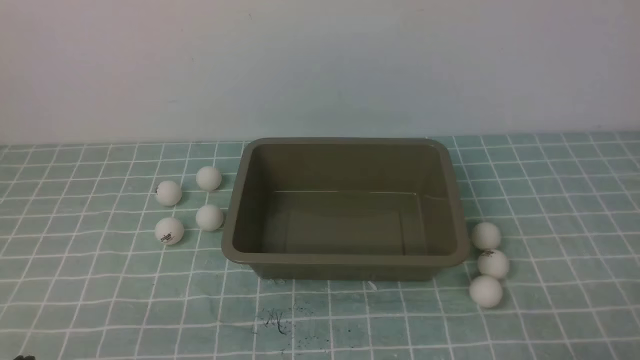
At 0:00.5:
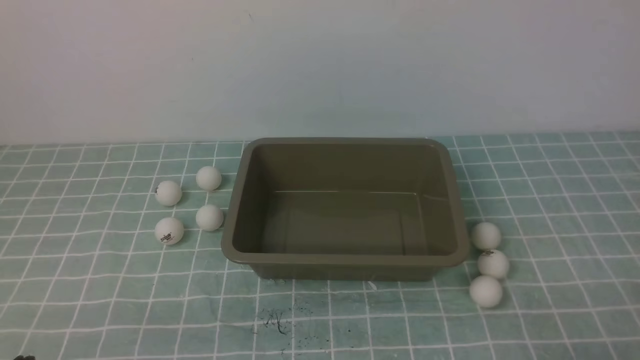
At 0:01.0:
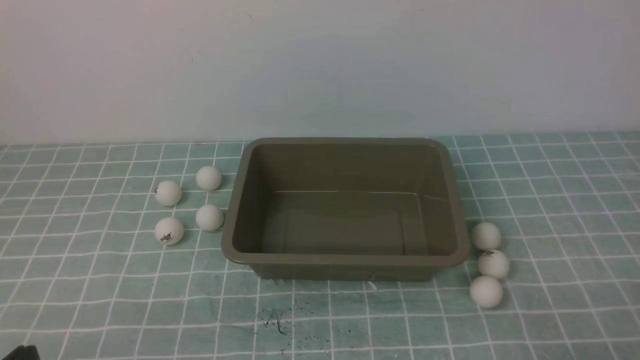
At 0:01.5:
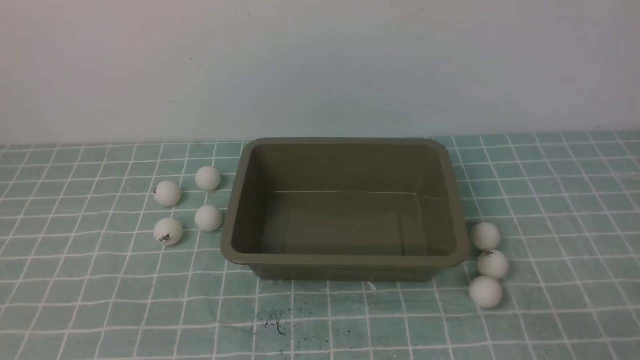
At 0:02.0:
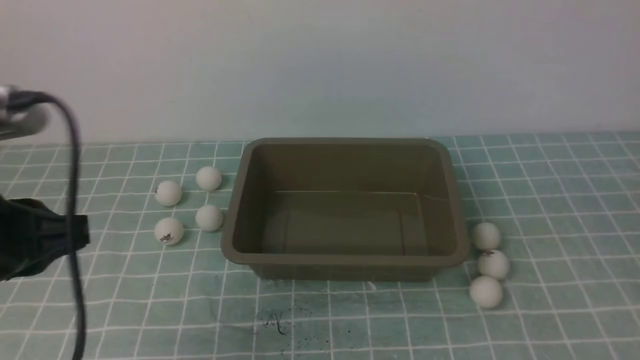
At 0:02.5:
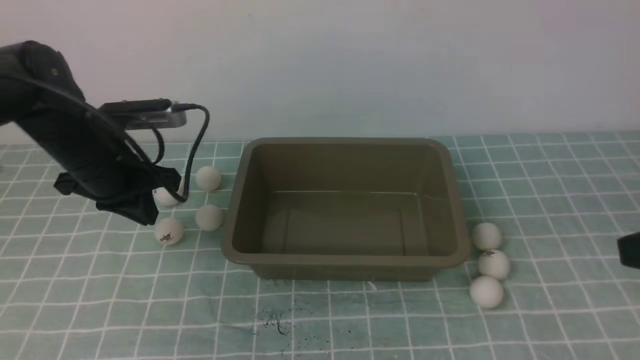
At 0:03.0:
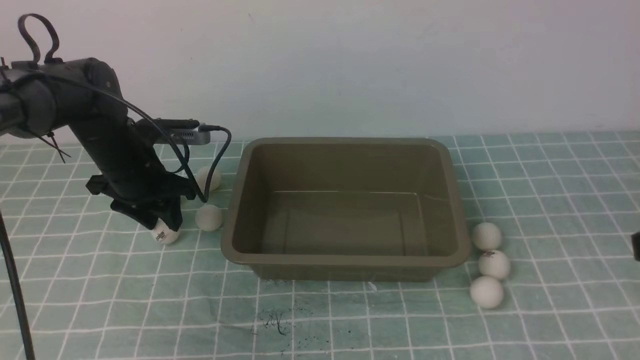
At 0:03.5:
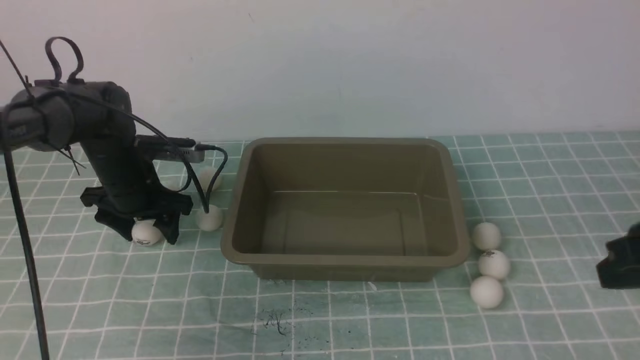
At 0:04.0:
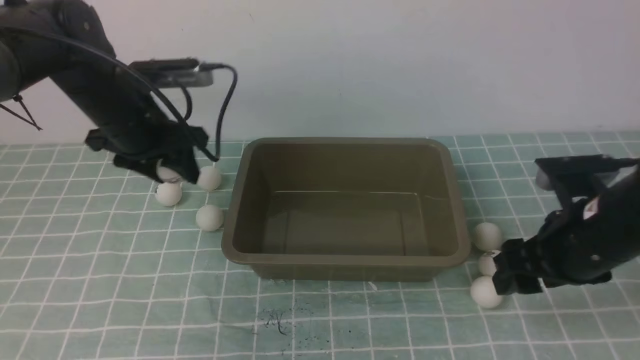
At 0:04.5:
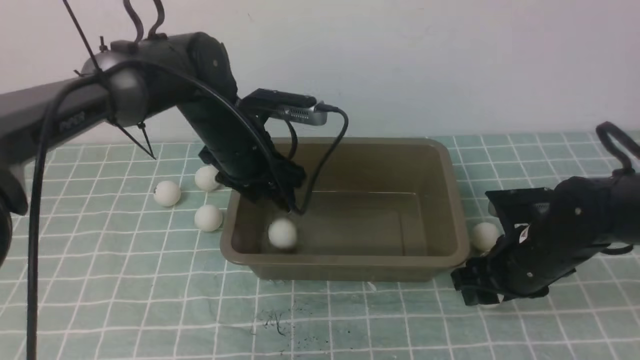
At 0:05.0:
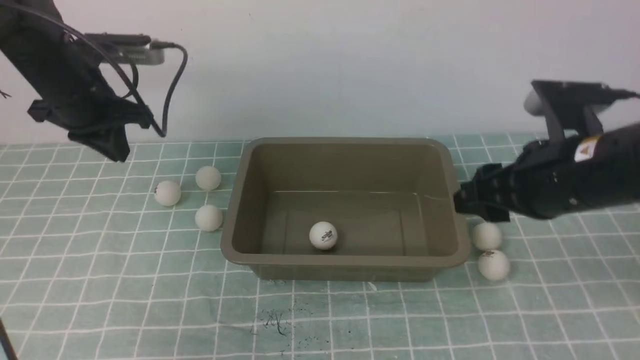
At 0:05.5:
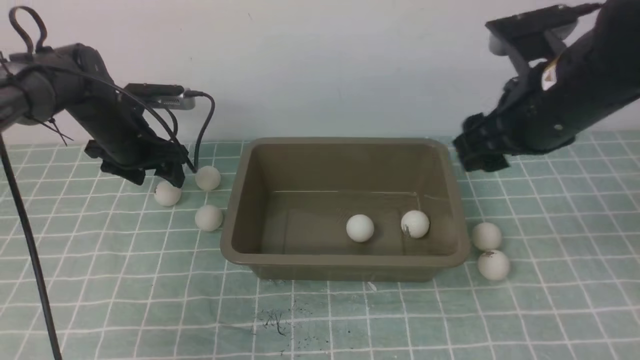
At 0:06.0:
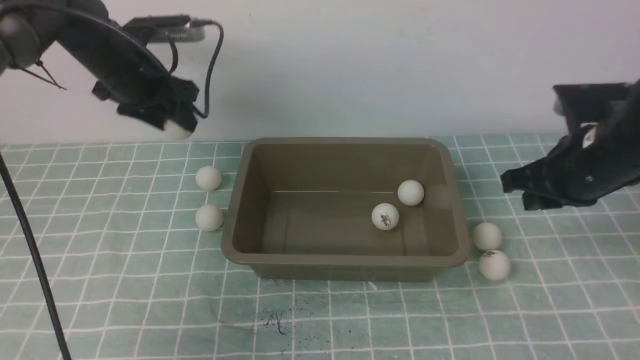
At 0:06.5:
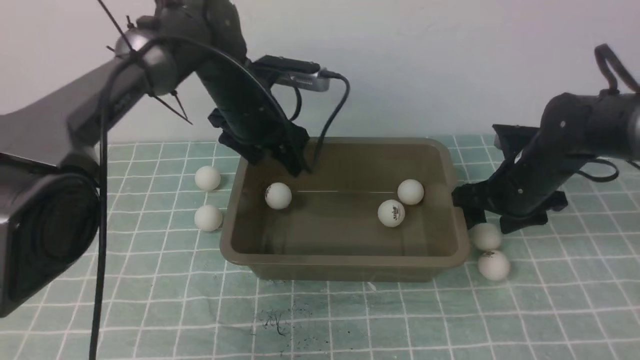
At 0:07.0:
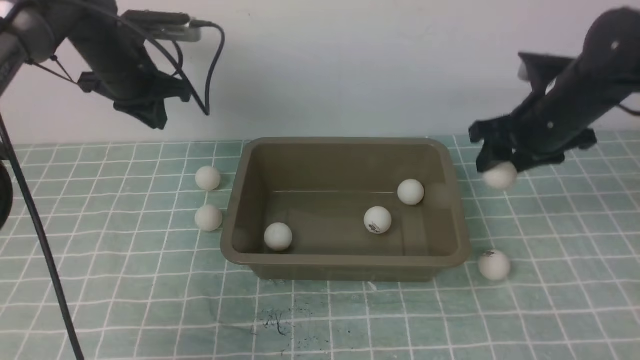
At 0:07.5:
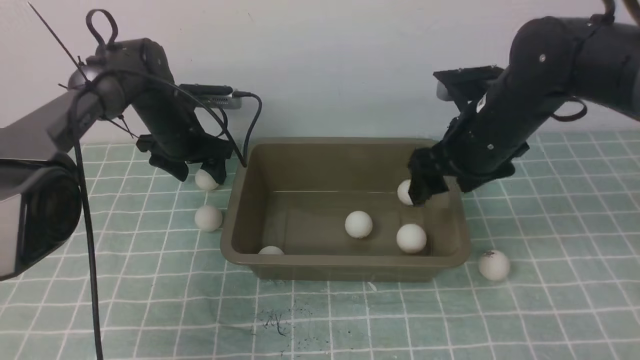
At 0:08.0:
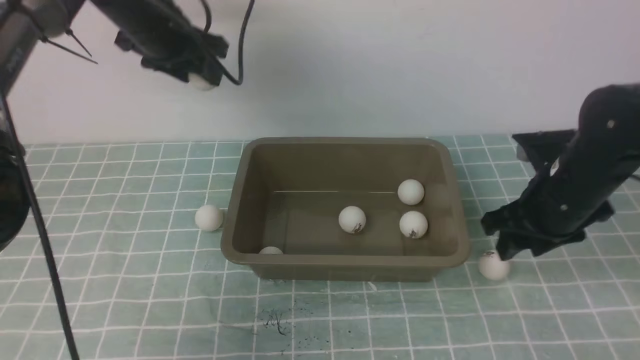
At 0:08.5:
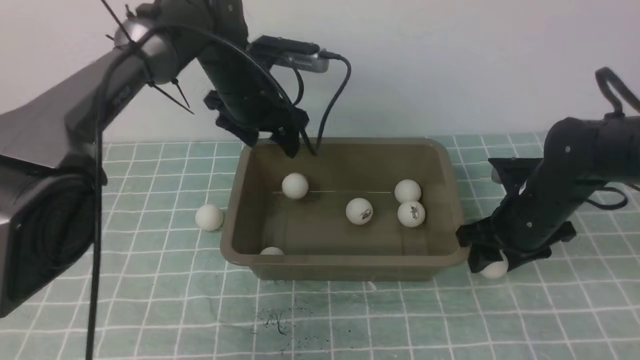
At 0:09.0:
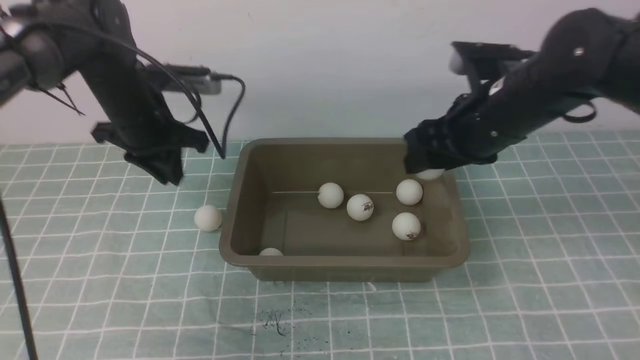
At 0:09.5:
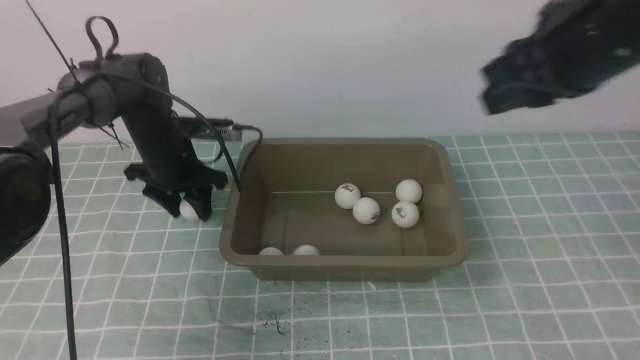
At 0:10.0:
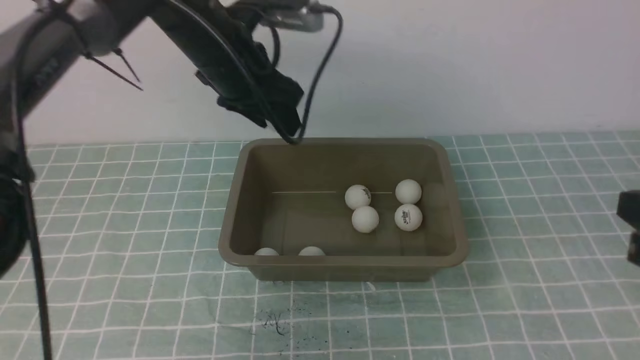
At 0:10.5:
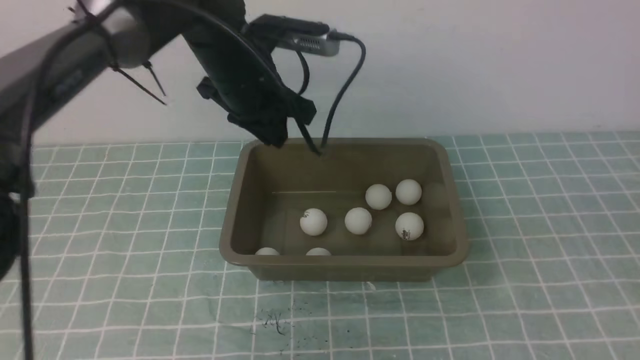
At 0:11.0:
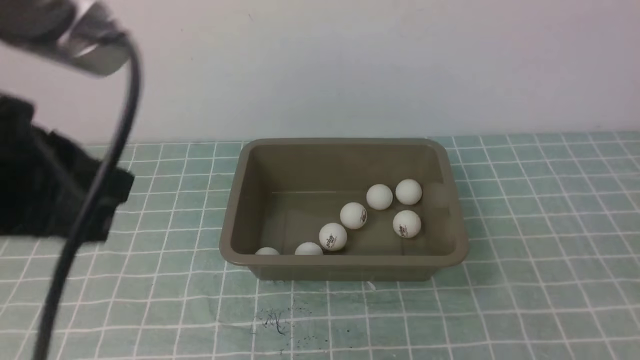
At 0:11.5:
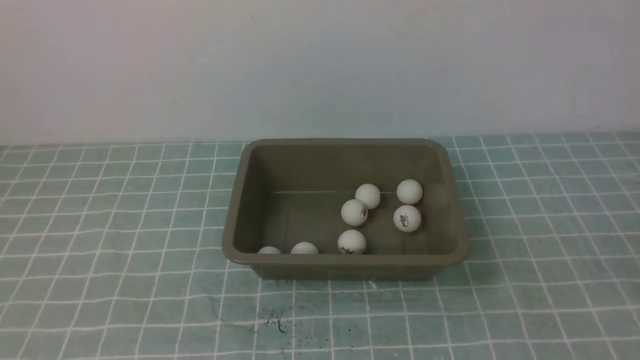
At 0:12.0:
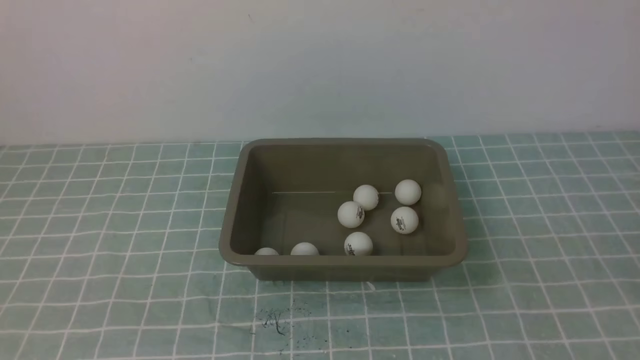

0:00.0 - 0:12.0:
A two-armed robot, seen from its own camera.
Step, 0:00.0 - 0:03.5: use the left arm to clamp the table tennis ball closest to it.
Step, 0:04.0 - 0:04.5: use the left arm to put the table tennis ball into the box.
Step, 0:05.0 - 0:05.5: use the right arm to put the table tennis ball into the box.
Step, 0:08.0 - 0:08.5: use the left arm to put the table tennis ball into the box.
Step, 0:09.0 - 0:09.5: use the right arm to put the table tennis ball into the box.
0:00.0 - 0:02.0: The left gripper heads upward and forward, covering about 20 cm.
0:02.0 - 0:04.0: The right gripper shifts about 25 cm forward and downward, and opens. The left gripper heads forward, covering roughly 25 cm, and opens up.
0:04.0 - 0:06.0: The right gripper swings up and down, about 15 cm each way, with 2 reversals, and closes, while the left gripper swings left and right, approximately 15 cm each way, with 2 reversals, and closes, then reopens.
0:06.0 - 0:08.0: The right gripper goes up and down, some 10 cm each way, reversing 2 times, while the left gripper closes, then reopens.
0:08.0 - 0:10.0: The right gripper heads backward and upward, covering roughly 25 cm, and closes its fingers. Meanwhile the left gripper heads to the right, covering about 5 cm, goes downward and returns, some 10 cm each way, and closes, then opens again.
0:10.0 - 0:12.0: The right gripper heads backward, covering roughly 10 cm. The left gripper travels backward by about 40 cm, and closes its fingers.

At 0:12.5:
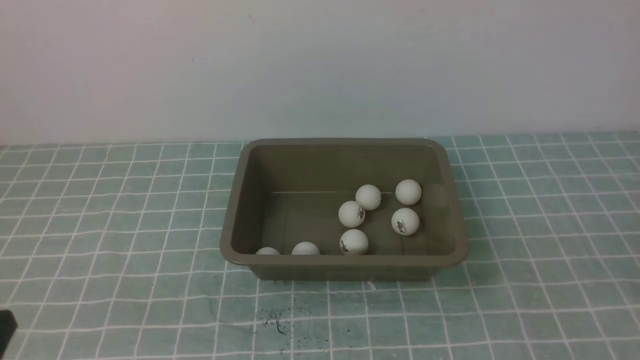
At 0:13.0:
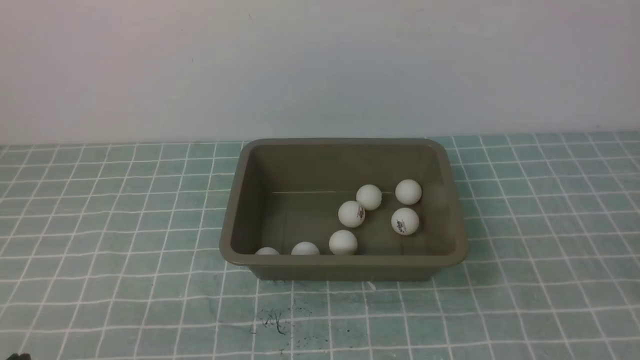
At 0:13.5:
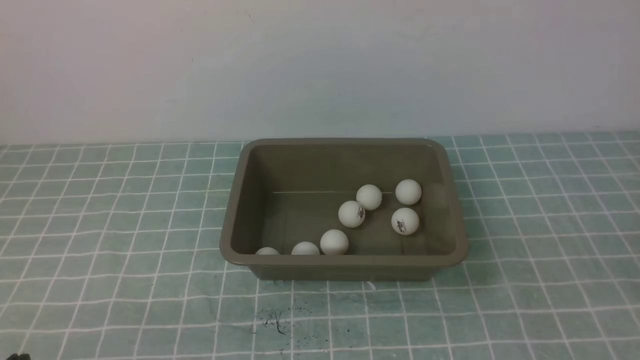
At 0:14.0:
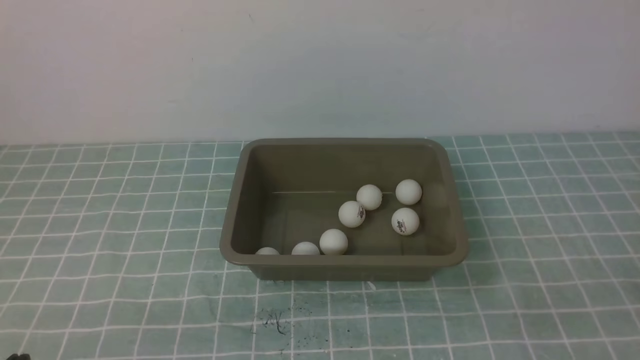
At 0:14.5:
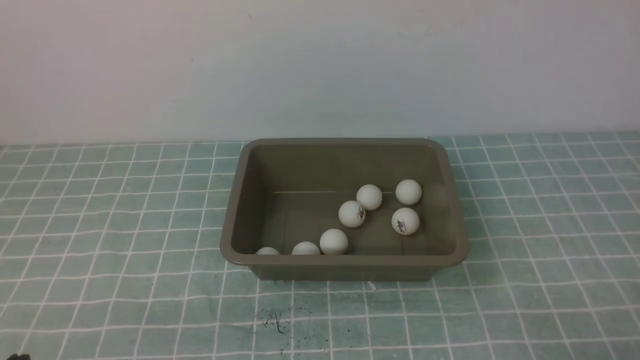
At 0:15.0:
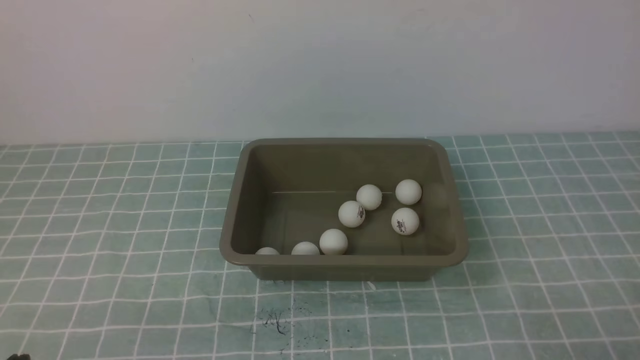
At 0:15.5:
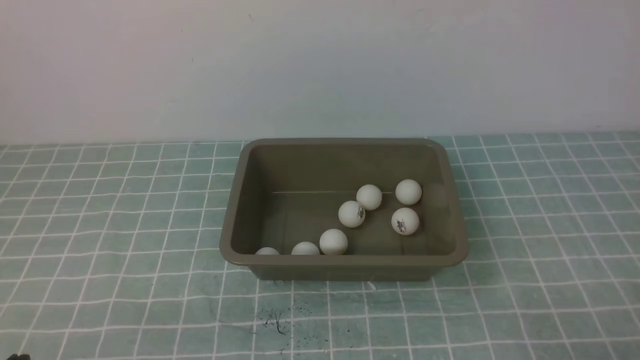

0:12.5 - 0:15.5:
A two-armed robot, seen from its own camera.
0:12.5 - 0:14.0: The left gripper goes approximately 5 cm downward.

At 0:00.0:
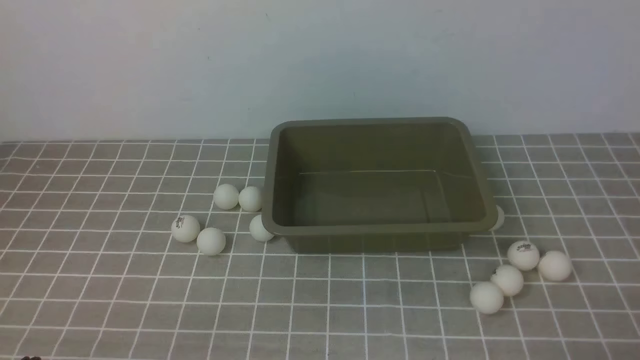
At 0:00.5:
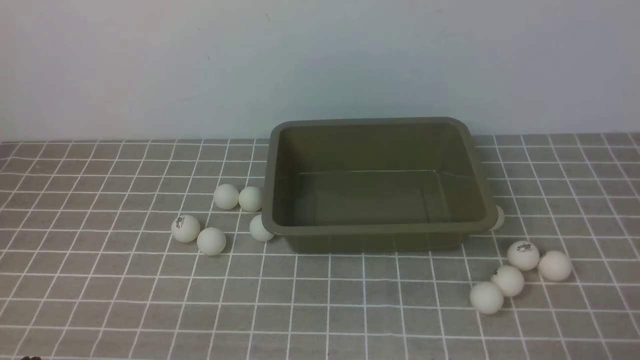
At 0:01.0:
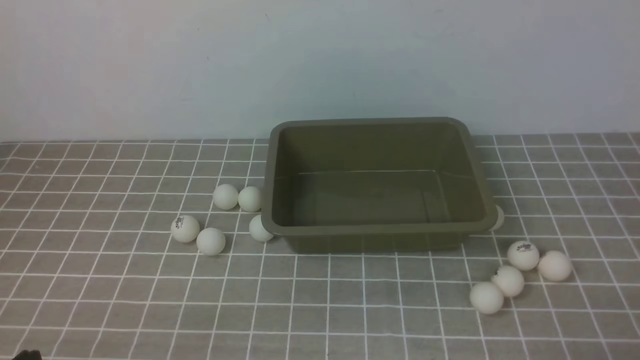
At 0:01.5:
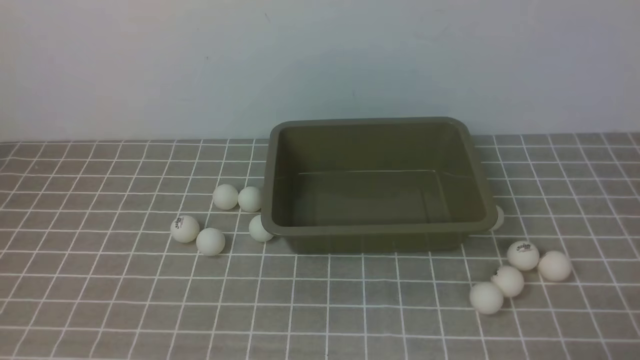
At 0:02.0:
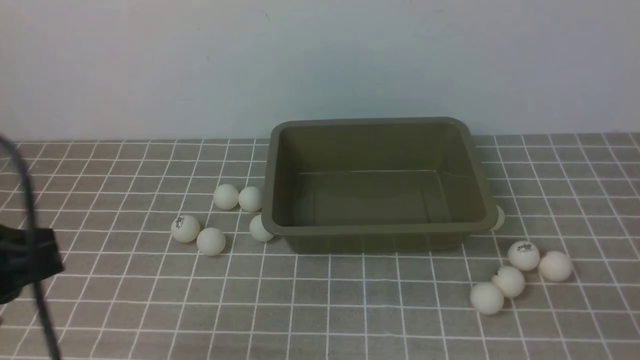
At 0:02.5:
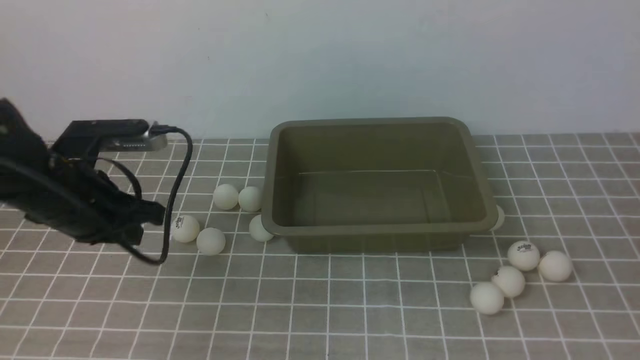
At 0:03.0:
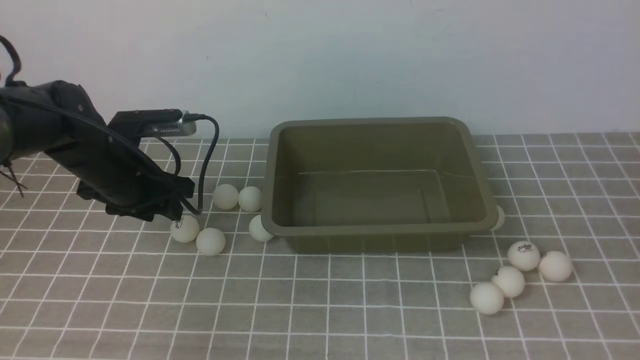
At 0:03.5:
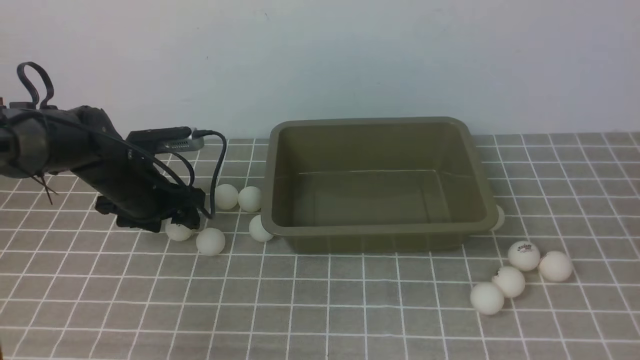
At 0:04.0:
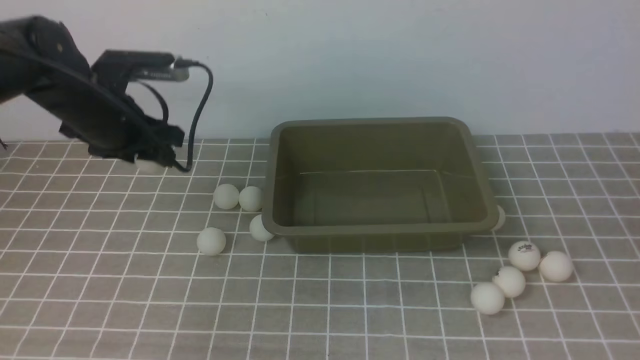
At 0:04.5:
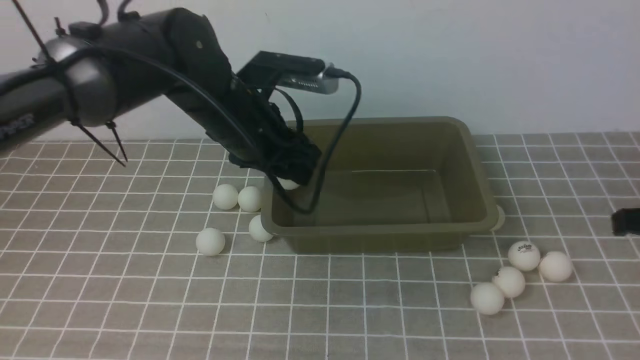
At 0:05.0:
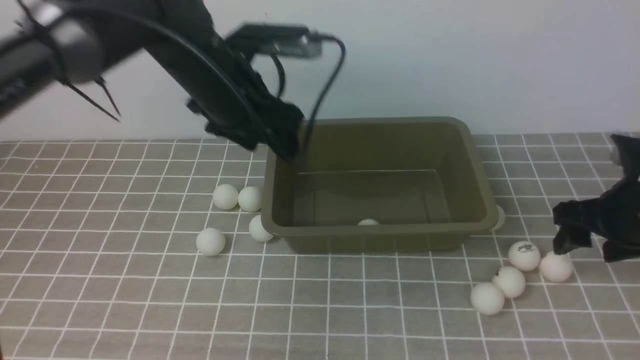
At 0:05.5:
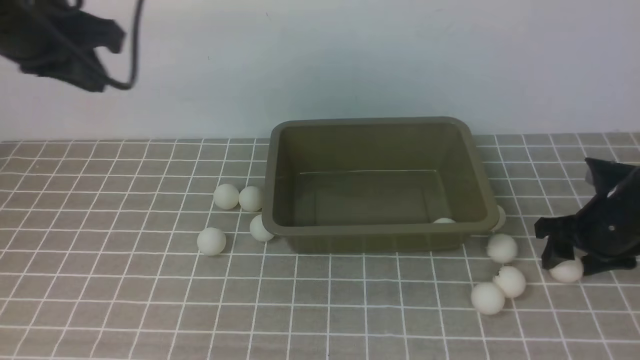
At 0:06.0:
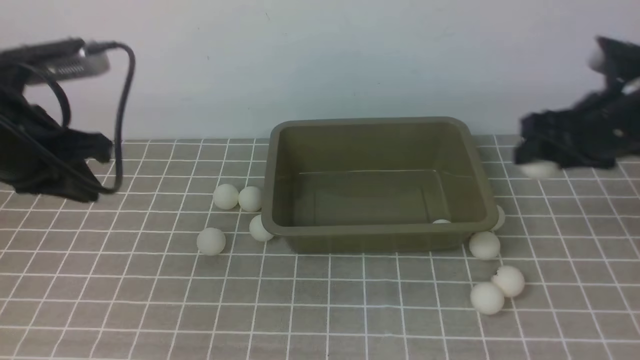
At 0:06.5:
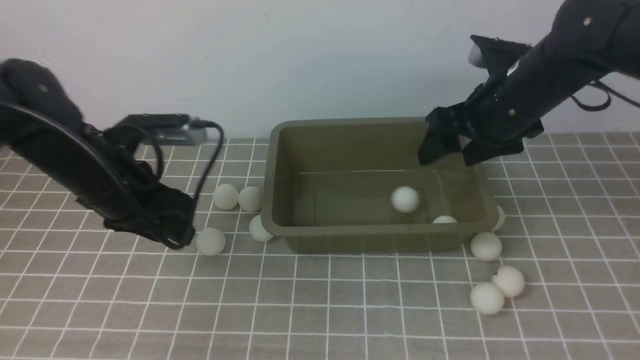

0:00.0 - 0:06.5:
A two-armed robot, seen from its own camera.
Step, 0:00.0 - 0:03.5: use the left arm to clamp the table tennis ball closest to it.
Step, 0:04.0 - 0:04.5: use the left arm to put the table tennis ball into the box.
Step, 0:05.0 - 0:05.5: use the right arm to clamp the table tennis ball closest to it.
Step, 0:06.0 - 0:06.5: use the right arm to put the table tennis ball into the box.
0:00.0 - 0:02.0: The left gripper heads upward and forward, covering roughly 15 cm.
0:02.0 - 0:04.5: The right gripper travels forward by about 20 cm; the left gripper moves forward and to the right, about 30 cm, and opens.
0:04.5 - 0:06.5: The left gripper travels to the left by roughly 10 cm, and closes and opens again, while the right gripper moves forward and to the left, some 20 cm, and opens up.
